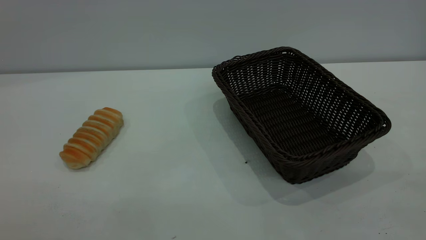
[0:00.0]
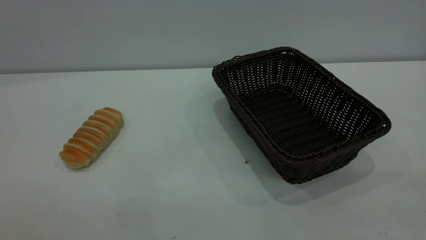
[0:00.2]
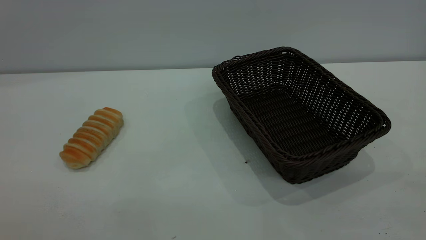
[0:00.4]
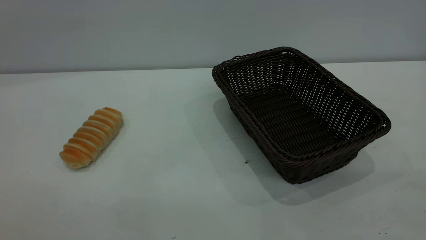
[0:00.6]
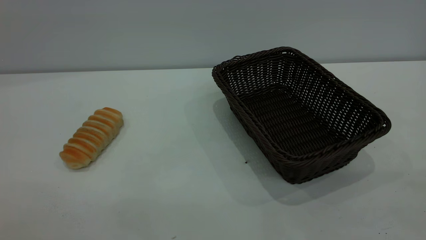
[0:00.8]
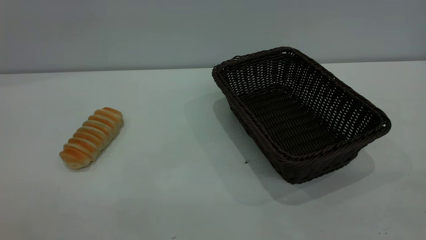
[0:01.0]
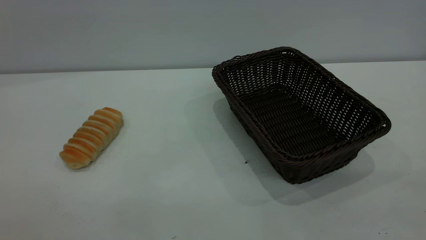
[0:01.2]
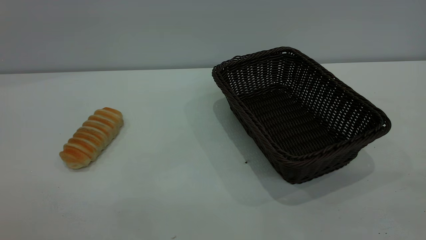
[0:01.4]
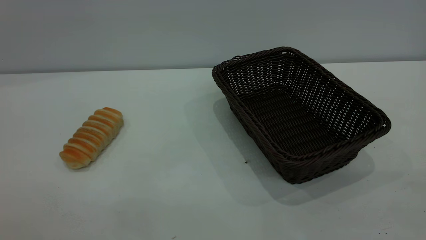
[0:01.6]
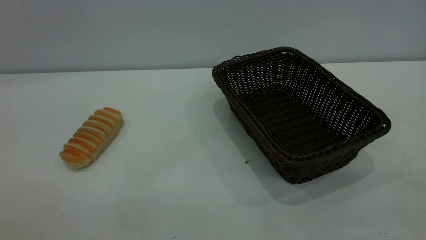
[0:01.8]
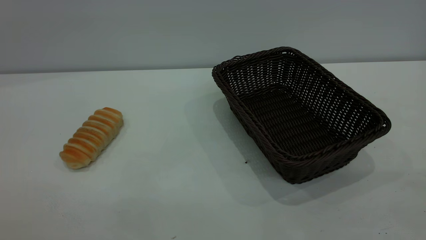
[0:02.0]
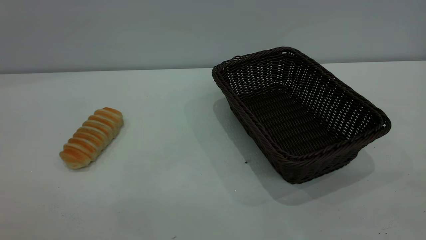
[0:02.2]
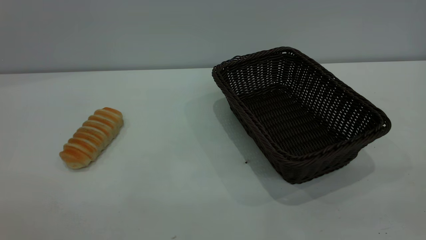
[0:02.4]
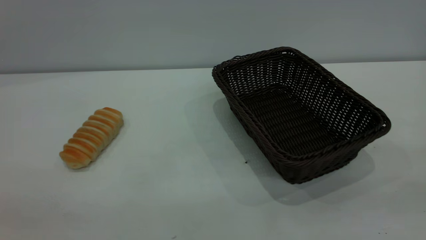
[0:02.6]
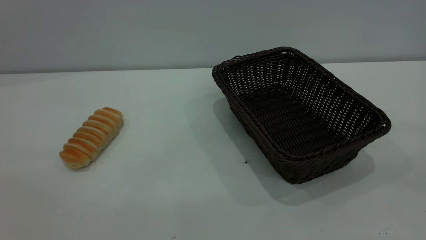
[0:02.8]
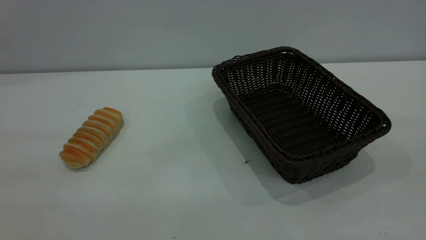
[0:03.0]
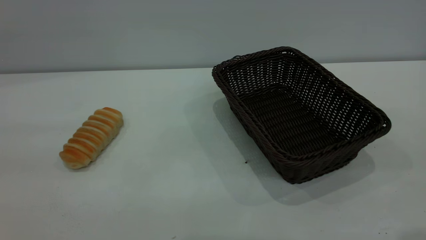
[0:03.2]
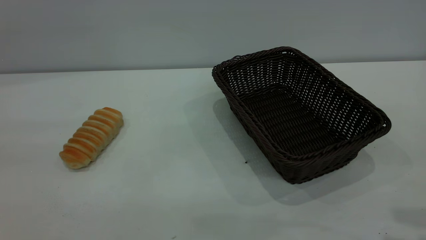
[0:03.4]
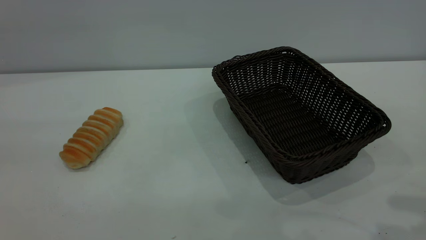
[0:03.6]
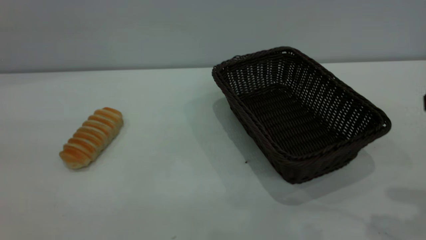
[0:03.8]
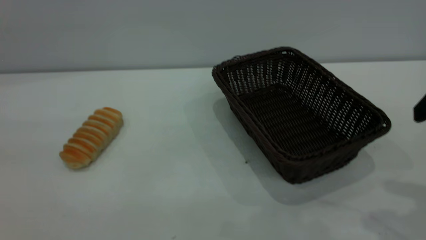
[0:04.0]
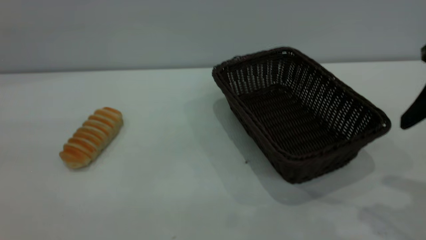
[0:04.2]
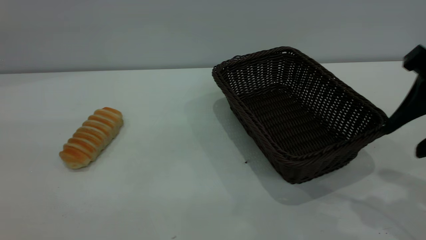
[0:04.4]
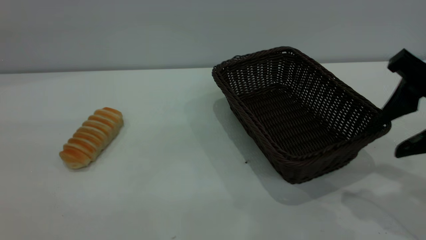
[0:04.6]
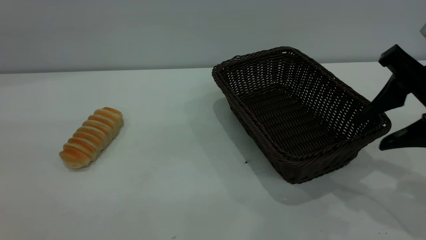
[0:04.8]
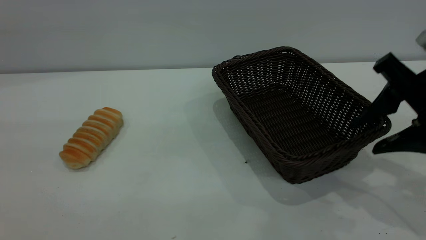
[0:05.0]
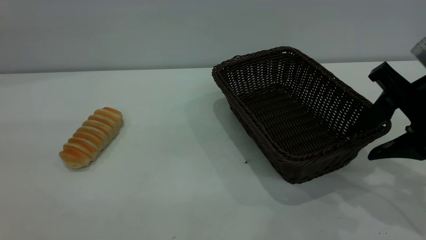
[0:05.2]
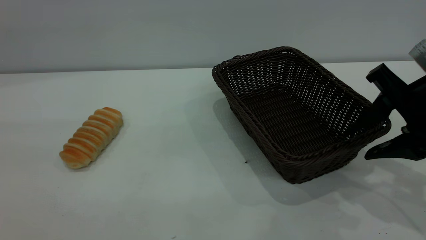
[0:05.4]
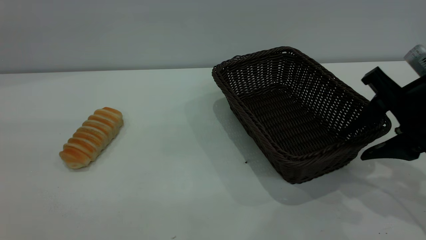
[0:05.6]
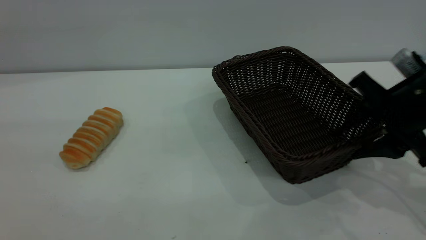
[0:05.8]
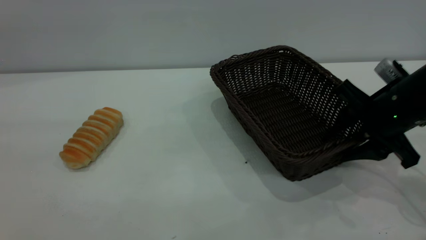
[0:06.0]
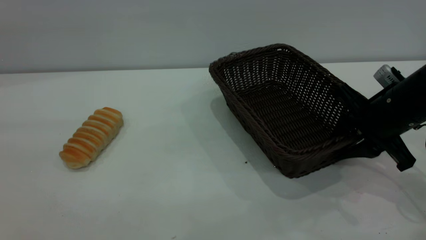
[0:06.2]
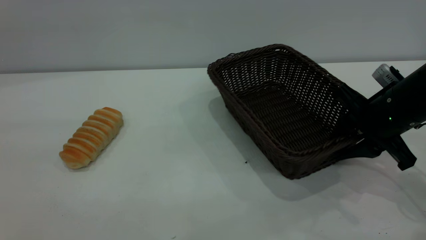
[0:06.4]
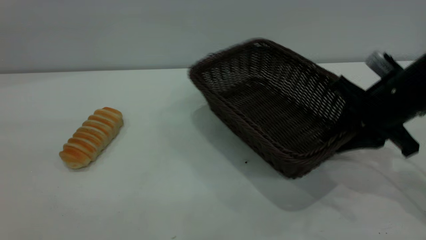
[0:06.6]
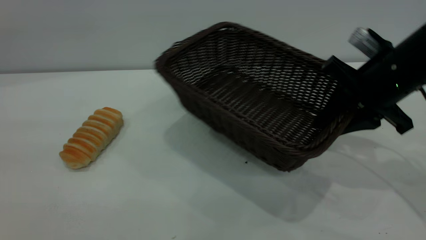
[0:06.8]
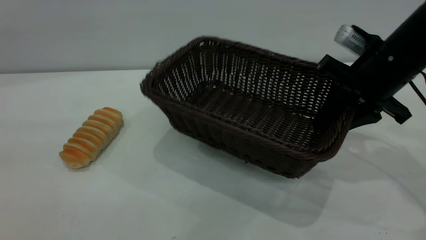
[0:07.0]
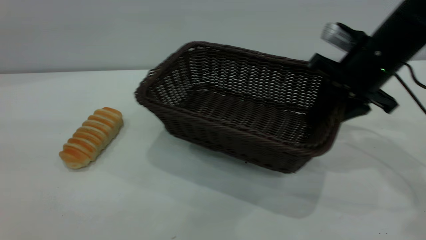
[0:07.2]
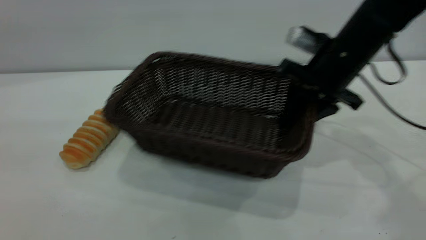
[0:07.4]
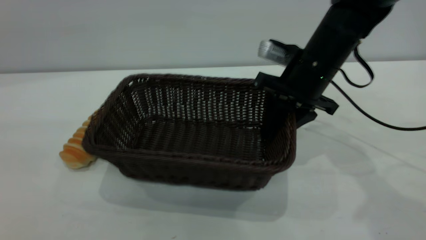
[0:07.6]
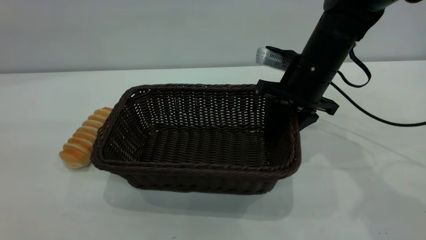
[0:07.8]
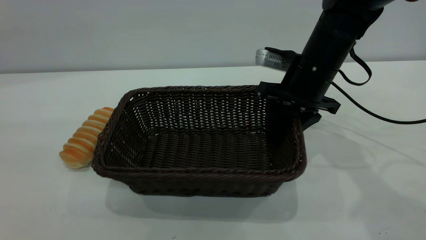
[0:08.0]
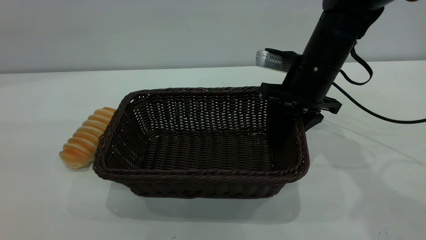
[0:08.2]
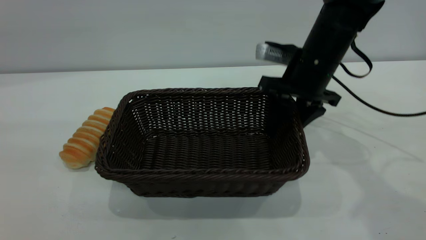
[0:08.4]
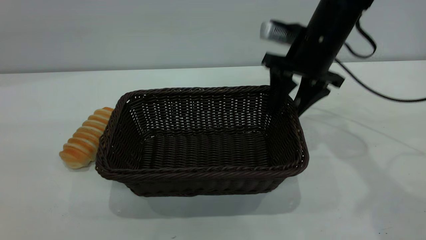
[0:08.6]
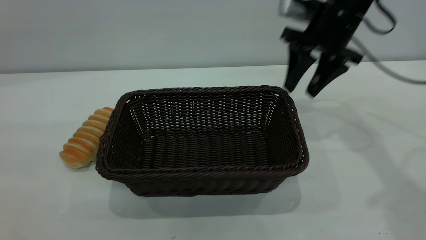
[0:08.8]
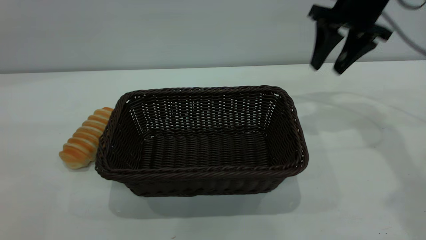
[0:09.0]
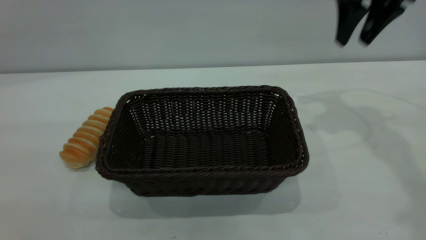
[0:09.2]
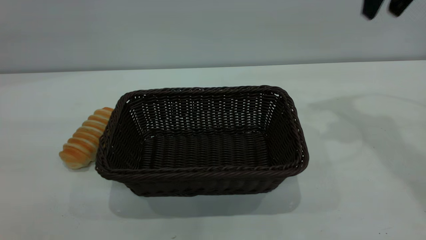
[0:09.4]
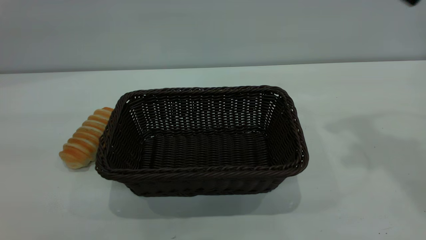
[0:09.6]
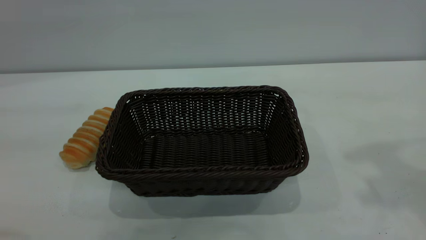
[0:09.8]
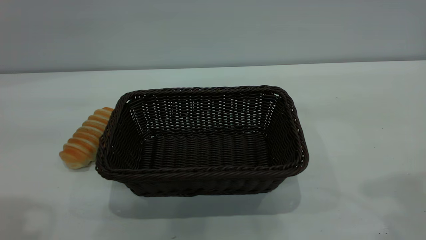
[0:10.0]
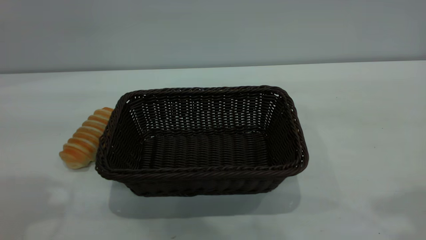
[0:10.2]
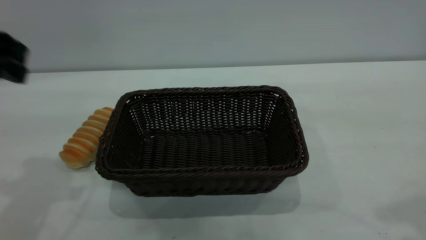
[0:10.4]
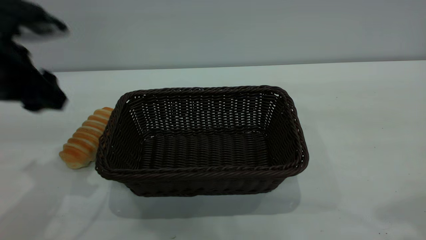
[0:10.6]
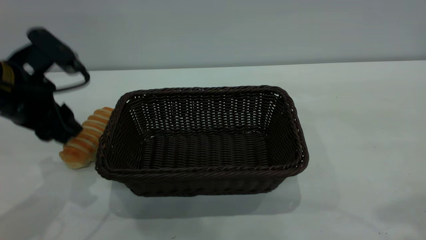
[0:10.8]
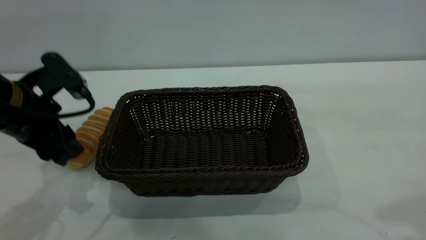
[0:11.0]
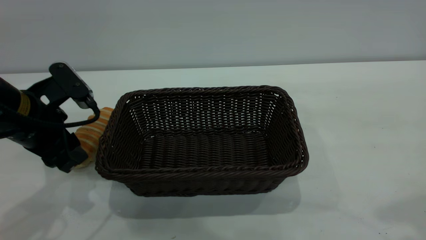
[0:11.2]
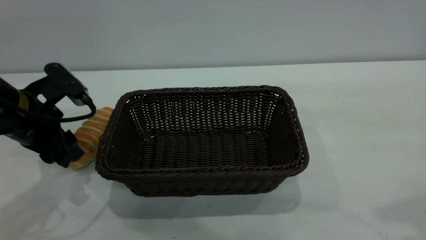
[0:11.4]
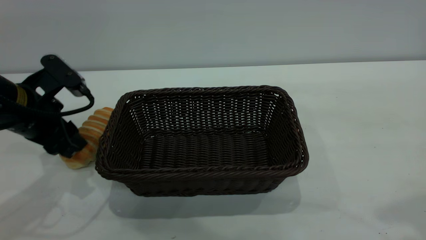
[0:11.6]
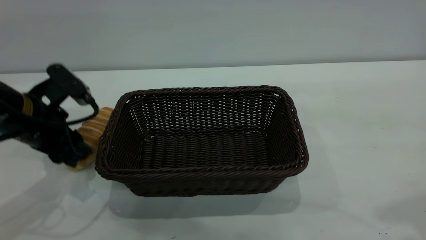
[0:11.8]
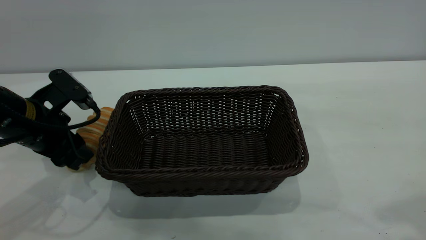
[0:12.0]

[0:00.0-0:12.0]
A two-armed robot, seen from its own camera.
Task of the whole recording: One hand grasps the black basket and places it in the middle of the table, while the other hand picks up the long bread and puts it into the black basket.
Step, 0.0 to 8.6 s: Move the basket to the center of view.
0.0 to 1.6 s: The two grippers keep their place.
3.0 to 4.4 s: The right gripper shifts approximately 20 cm downward and forward.
4.4 to 6.0 s: The right gripper goes about 15 cm downward and forward.
6.0 to 7.6 s: The right gripper is displaced to the left and forward by approximately 15 cm, and closes its fingers.
7.6 to 9.0 s: The right gripper travels upward, to the right and forward by some 15 cm, and opens.
9.0 to 10.4 s: The right gripper shifts approximately 35 cm backward and upward; the left gripper travels forward and downward by approximately 25 cm.
10.4 to 12.0 s: The left gripper is displaced downward by approximately 15 cm.

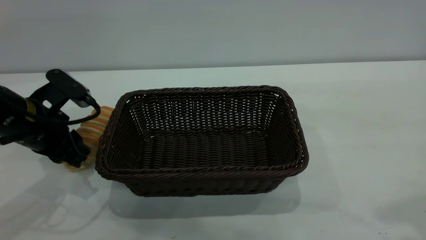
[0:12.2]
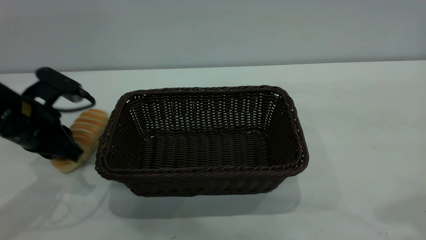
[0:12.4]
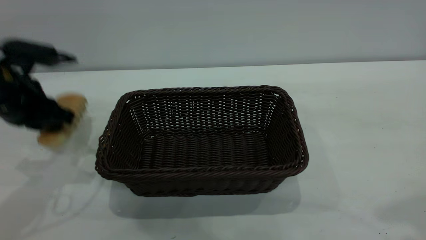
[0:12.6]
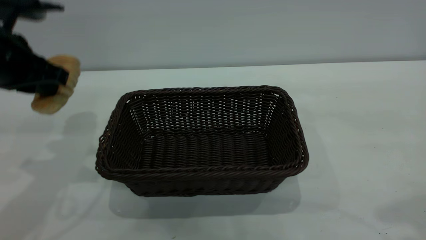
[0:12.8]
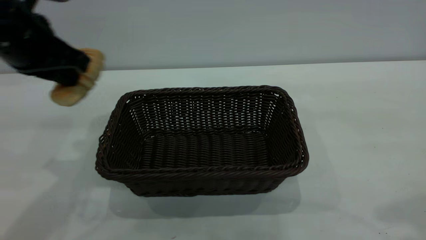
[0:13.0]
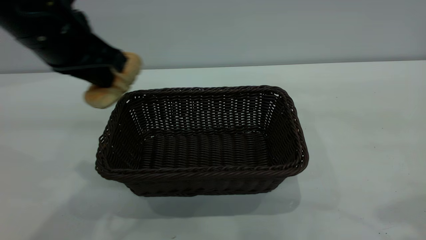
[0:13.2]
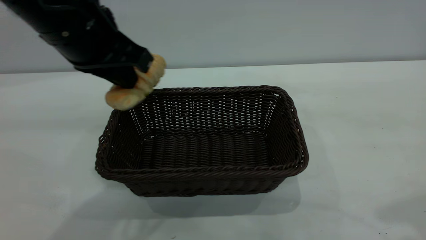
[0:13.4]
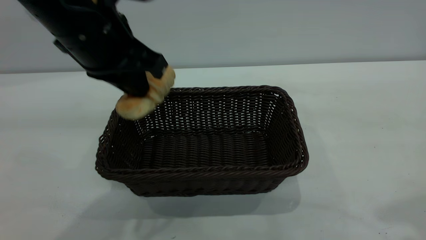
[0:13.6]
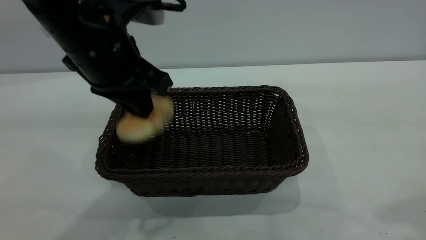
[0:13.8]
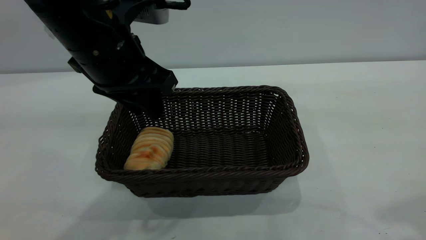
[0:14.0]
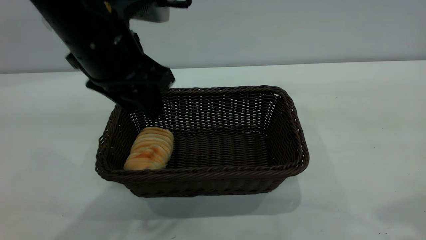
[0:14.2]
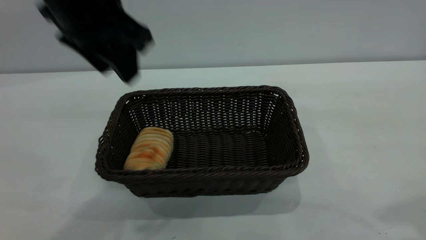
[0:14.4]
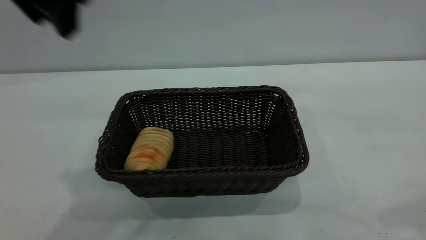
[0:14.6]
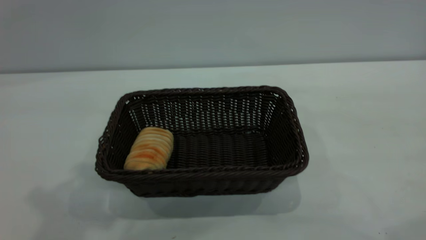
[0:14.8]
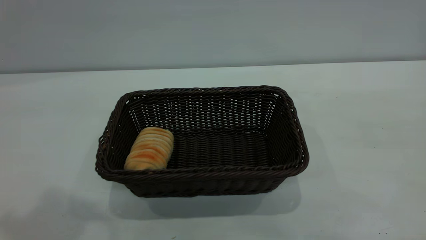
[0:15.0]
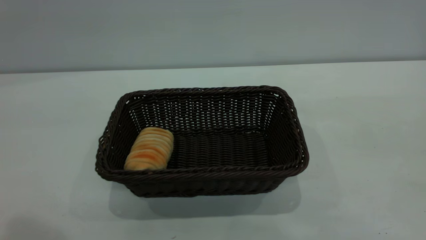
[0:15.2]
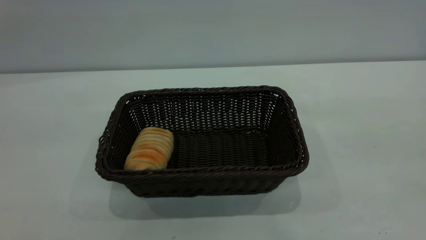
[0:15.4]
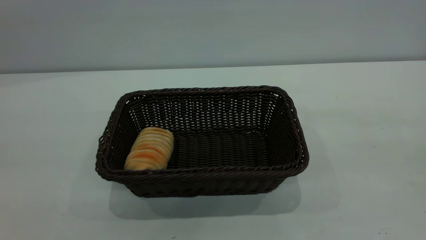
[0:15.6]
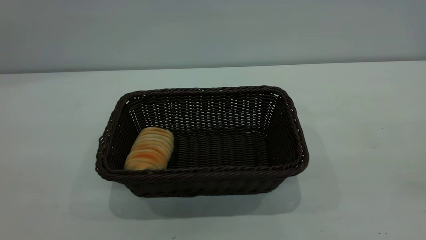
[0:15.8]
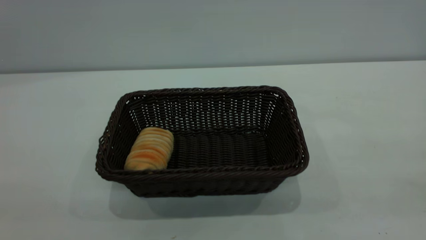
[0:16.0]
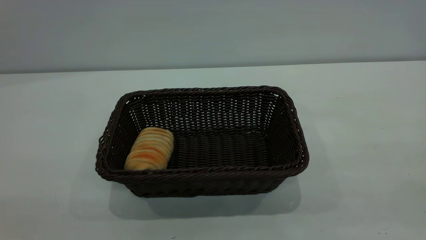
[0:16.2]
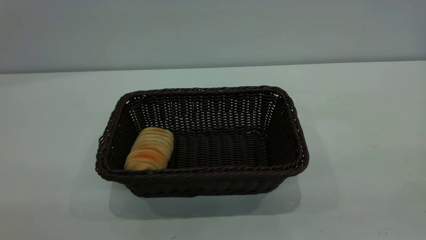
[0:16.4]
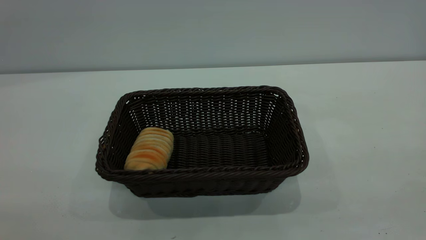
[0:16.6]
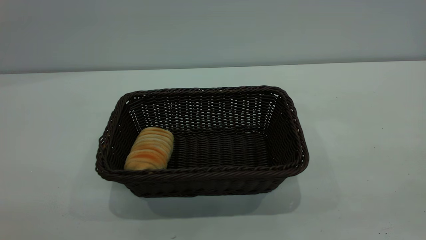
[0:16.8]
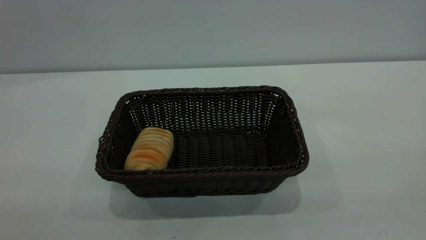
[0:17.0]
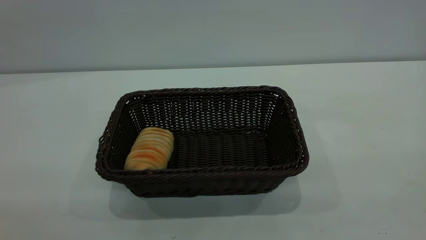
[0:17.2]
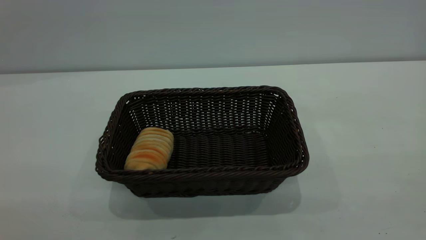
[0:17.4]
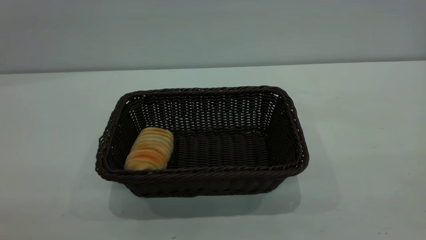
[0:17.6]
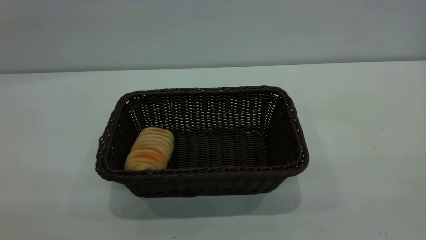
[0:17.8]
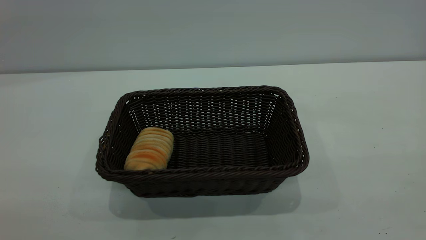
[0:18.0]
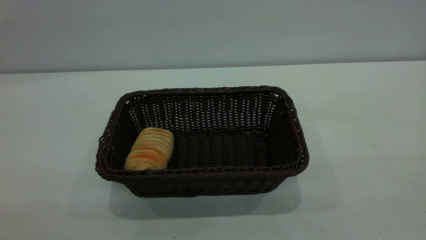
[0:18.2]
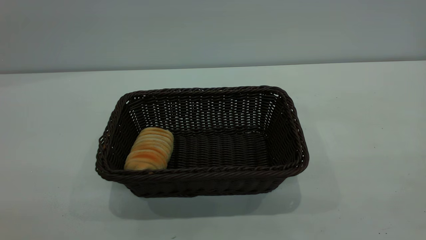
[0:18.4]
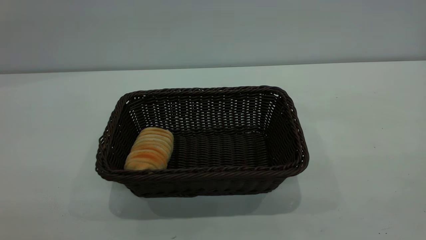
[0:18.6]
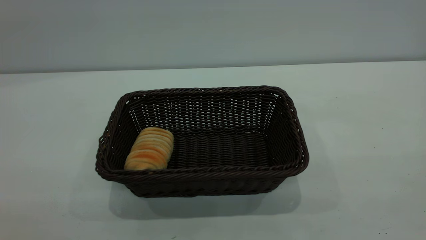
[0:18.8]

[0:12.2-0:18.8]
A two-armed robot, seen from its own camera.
Task of the whole recording: One hand grasps the black basket and places it in the middle of the table, while the other hand picks up the long bread and puts it into the black basket.
Step, 12.8 to 14.2 s: place the bread into the basket.
12.2 to 13.8 s: The left gripper travels to the right and upward by approximately 20 cm.
13.8 to 15.4 s: The left gripper is displaced upward, backward and to the left by approximately 30 cm, and opens. Meanwhile the right gripper shifts about 10 cm backward.
17.2 to 18.8 s: Both grippers stay put.
